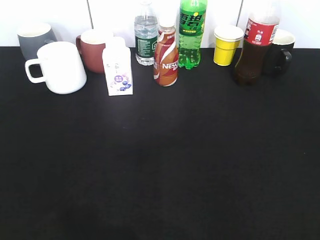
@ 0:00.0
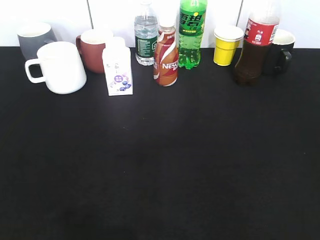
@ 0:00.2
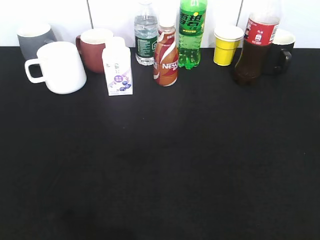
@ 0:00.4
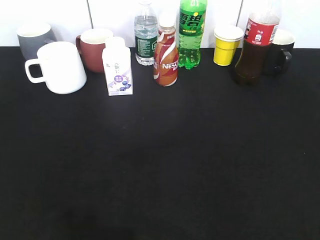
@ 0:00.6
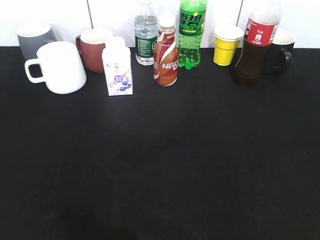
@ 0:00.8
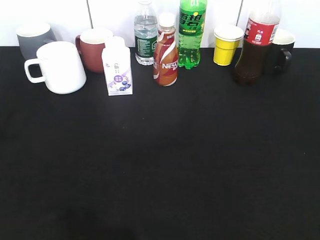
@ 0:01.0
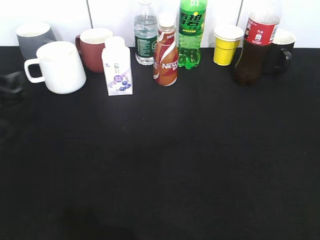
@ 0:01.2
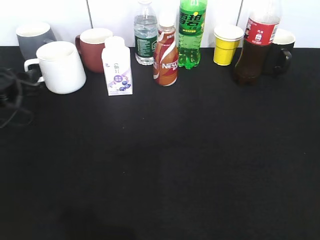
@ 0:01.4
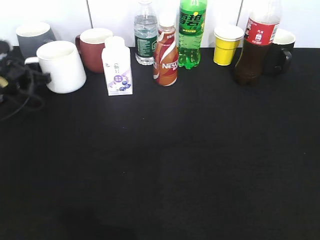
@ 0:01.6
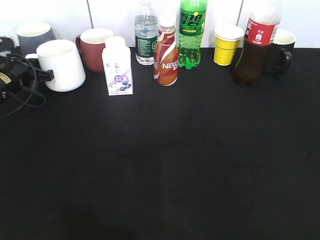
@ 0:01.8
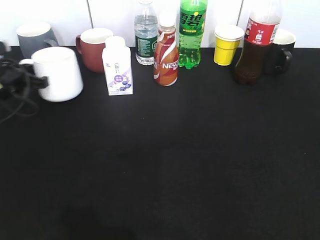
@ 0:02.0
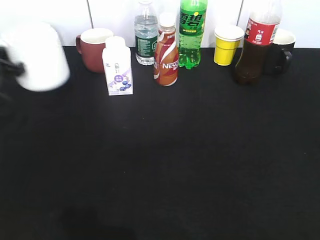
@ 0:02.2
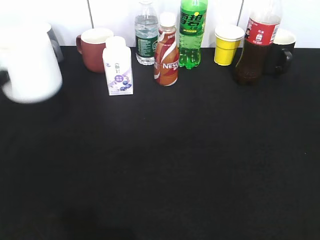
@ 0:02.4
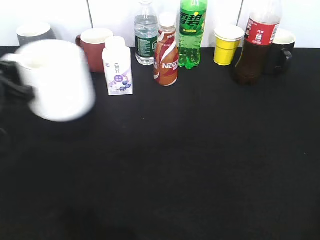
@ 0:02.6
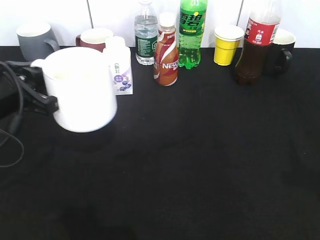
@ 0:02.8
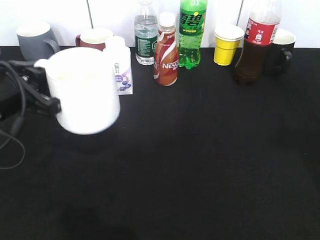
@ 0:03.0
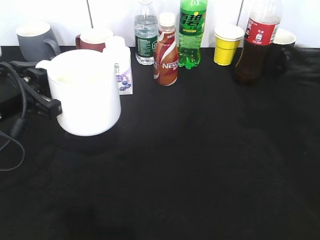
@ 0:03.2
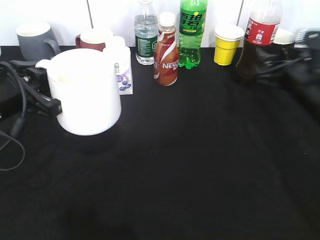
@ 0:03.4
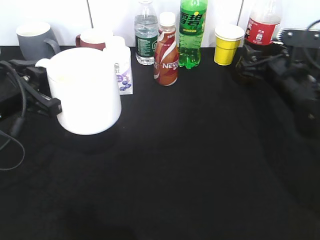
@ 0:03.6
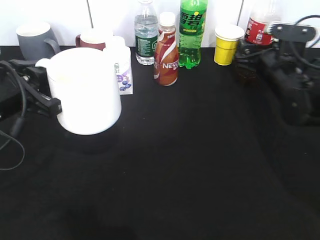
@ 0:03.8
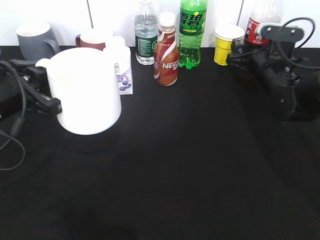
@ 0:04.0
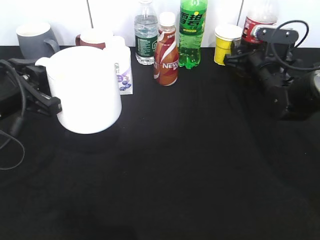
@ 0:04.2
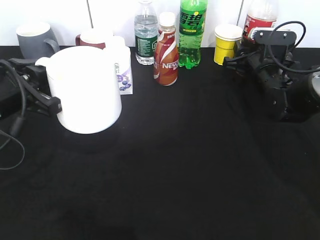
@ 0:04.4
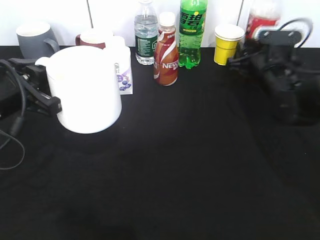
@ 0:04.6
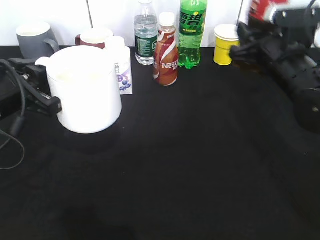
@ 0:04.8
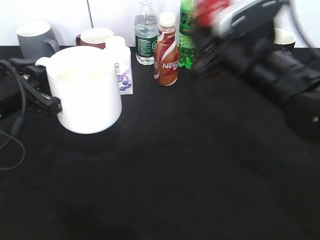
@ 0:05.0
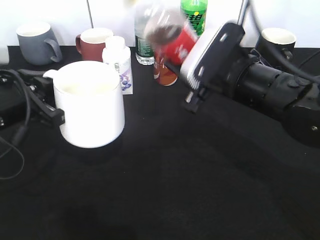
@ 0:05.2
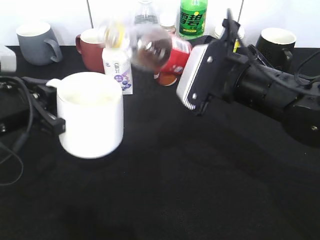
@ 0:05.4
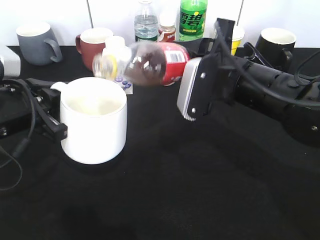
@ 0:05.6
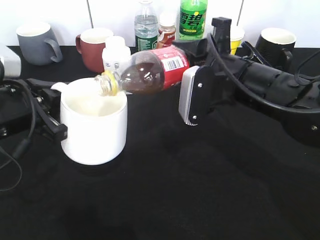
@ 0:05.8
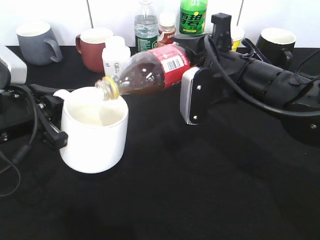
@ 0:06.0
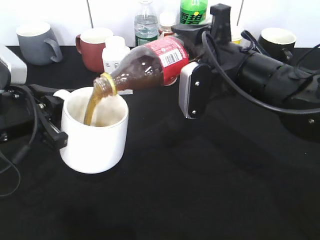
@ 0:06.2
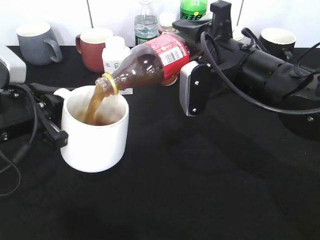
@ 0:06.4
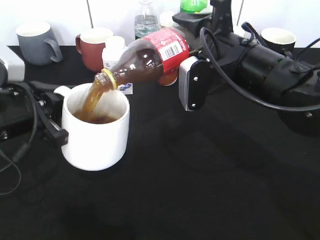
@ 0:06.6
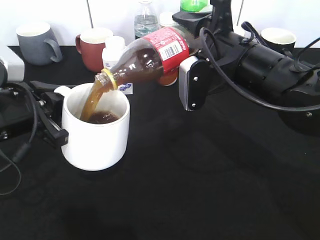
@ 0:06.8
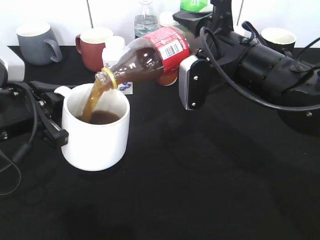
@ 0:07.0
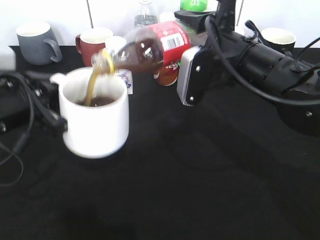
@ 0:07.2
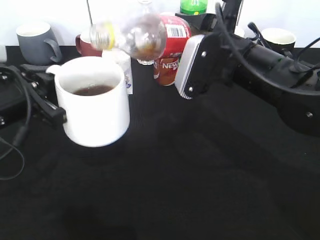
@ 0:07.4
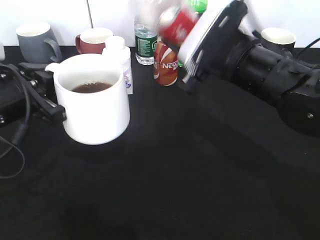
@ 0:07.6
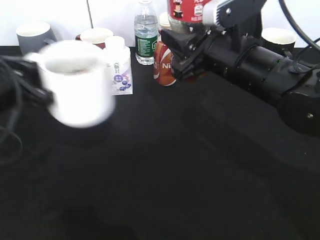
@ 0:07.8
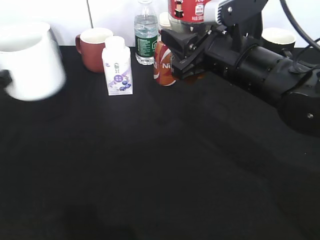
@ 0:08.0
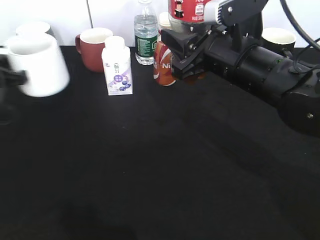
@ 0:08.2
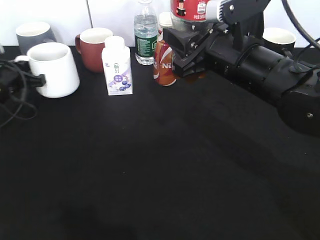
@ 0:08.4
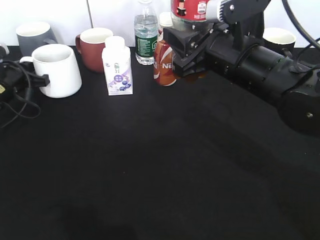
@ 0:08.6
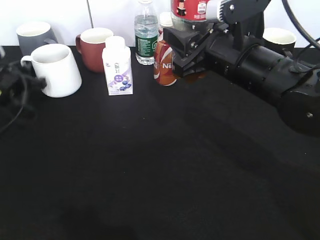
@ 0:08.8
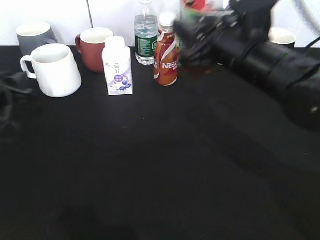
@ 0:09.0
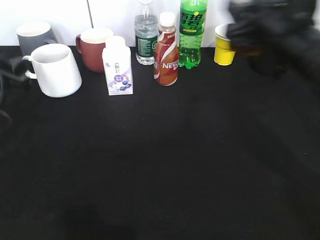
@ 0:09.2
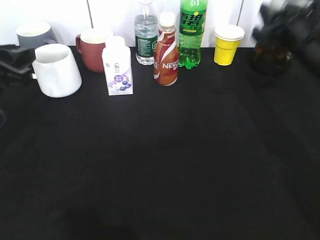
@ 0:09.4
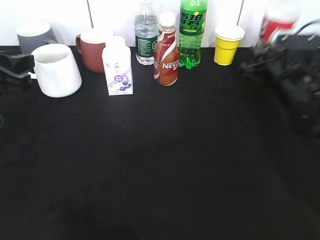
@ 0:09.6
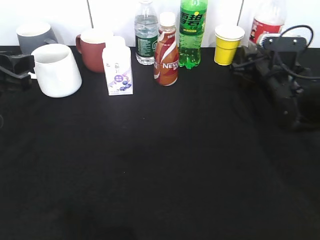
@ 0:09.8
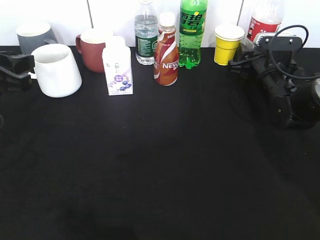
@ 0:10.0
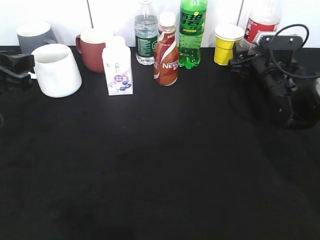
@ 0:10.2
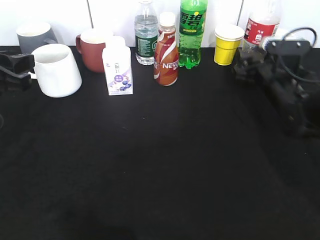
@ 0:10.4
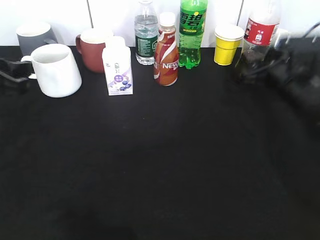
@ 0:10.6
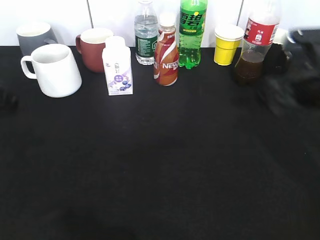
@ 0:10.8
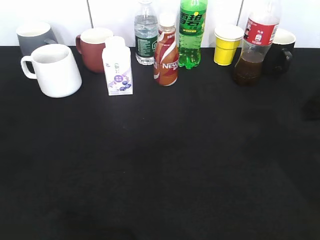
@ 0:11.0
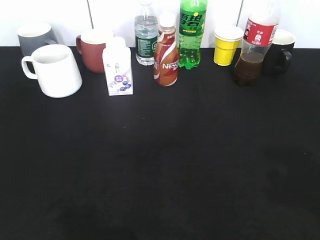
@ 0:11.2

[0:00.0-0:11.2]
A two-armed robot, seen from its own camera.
Step, 0:00.0 to 0:01.6: Grasp the white cup with left gripper.
Step, 0:01.8 to 0:02.8: Lift the white cup with left gripper.
Step, 0:03.0 to 0:04.4: Grasp the bottle with cola with right gripper.
Step, 0:04.6 to 0:07.4: Pour the cola from bottle to cup with right gripper.
Step, 0:07.6 to 0:09.0: Place the white cup on the table with left gripper.
Step, 0:09.2 to 0:10.6: Place the cola bottle on the table with right gripper.
0:00.0 to 0:01.6: The left gripper shifts about 40 cm forward and downward, and closes.
0:01.6 to 0:03.2: The left gripper goes about 20 cm backward, upward and to the right, and closes its fingers. The right gripper shifts some 25 cm forward.
0:03.2 to 0:04.8: The right gripper moves forward and to the left, roughly 10 cm, and closes its fingers.
0:04.8 to 0:06.4: The right gripper heads to the left, covering approximately 10 cm.
0:06.4 to 0:08.0: The left gripper shifts some 10 cm to the left.
0:08.0 to 0:09.6: The left gripper reaches some 10 cm forward, then returns, and opens; the right gripper heads to the right, downward and forward, covering approximately 15 cm.
0:09.6 to 0:11.2: The right gripper moves backward and upward, roughly 35 cm, and opens. Meanwhile the left gripper moves backward and upward, approximately 20 cm, and opens.
